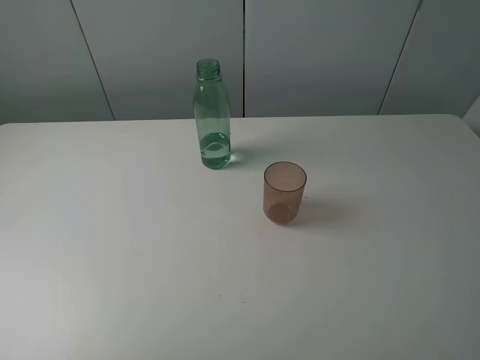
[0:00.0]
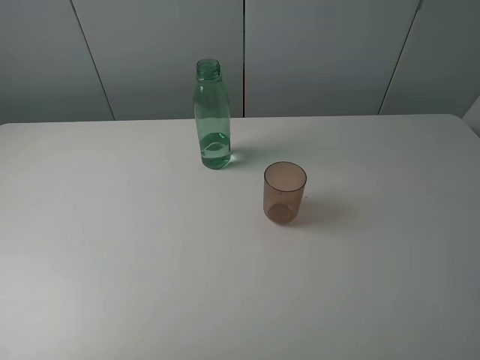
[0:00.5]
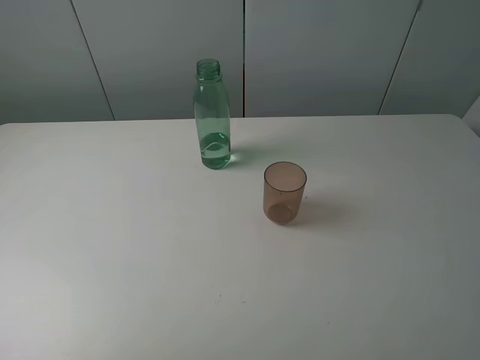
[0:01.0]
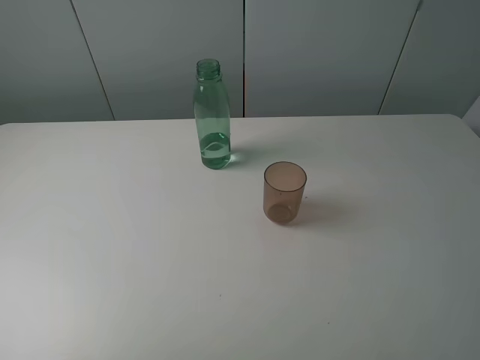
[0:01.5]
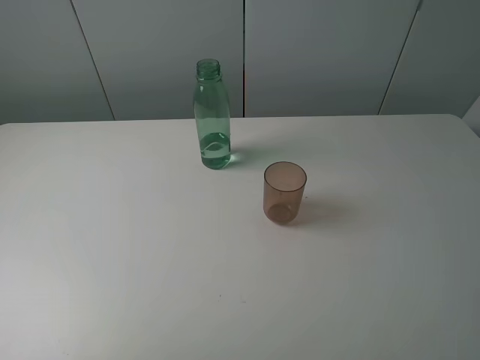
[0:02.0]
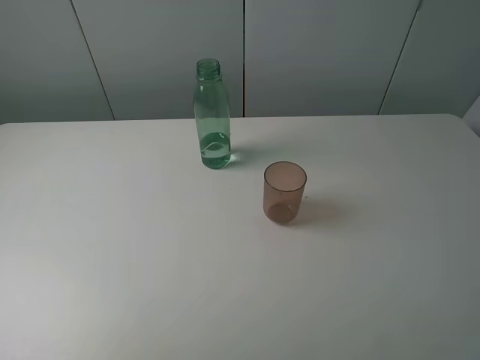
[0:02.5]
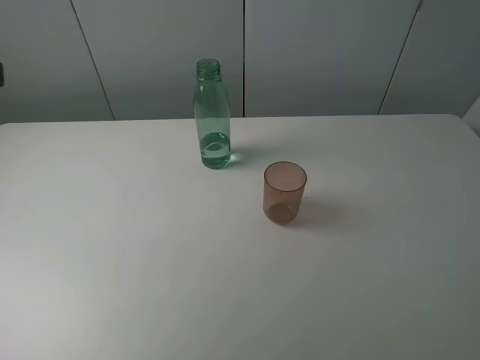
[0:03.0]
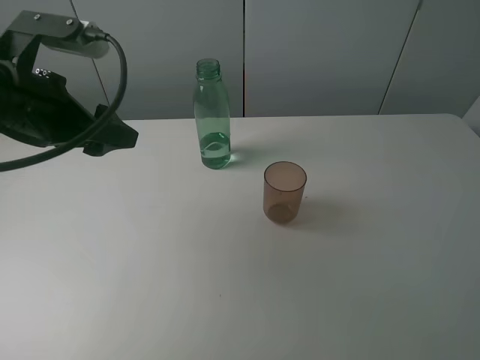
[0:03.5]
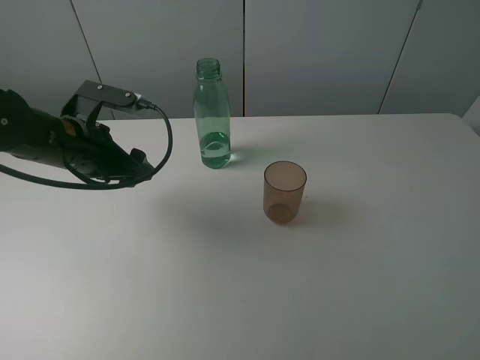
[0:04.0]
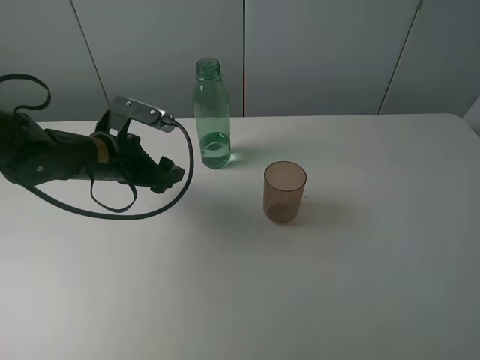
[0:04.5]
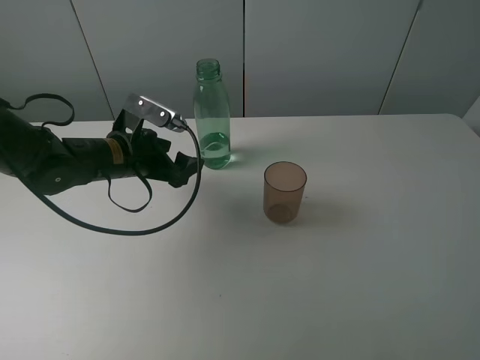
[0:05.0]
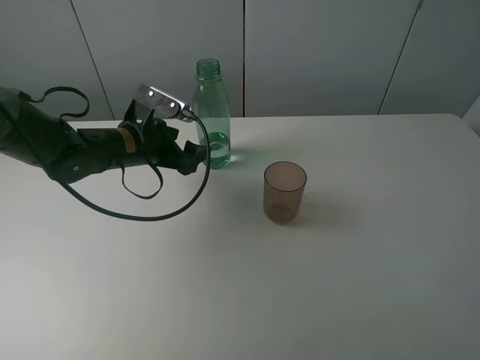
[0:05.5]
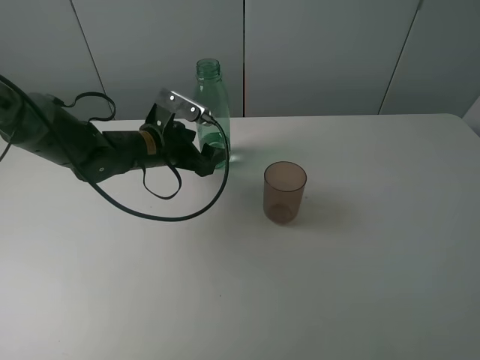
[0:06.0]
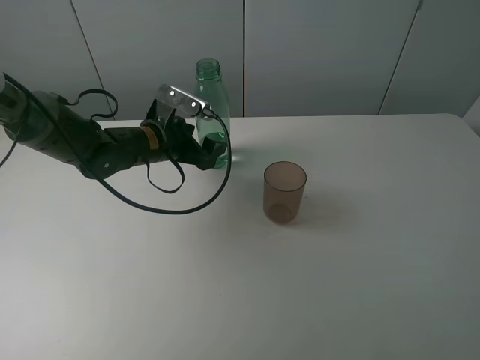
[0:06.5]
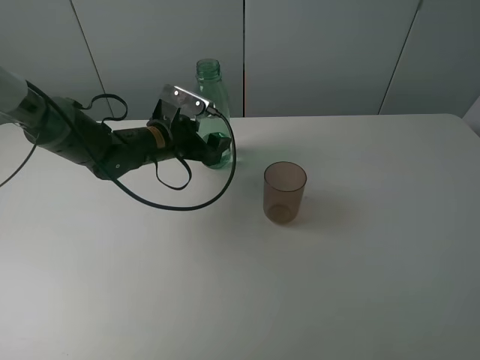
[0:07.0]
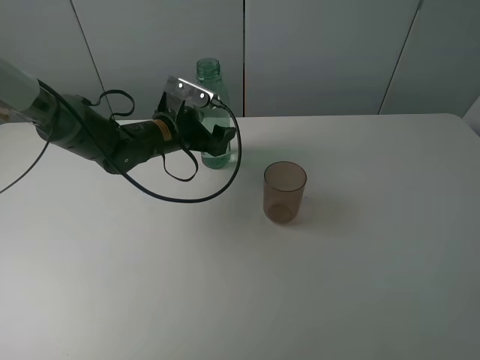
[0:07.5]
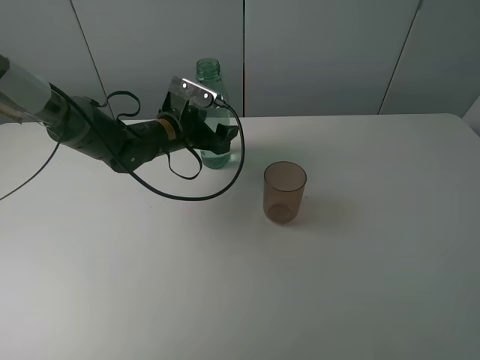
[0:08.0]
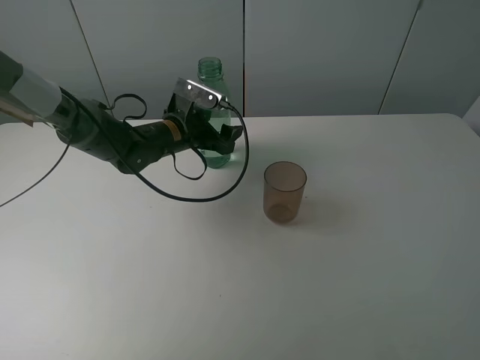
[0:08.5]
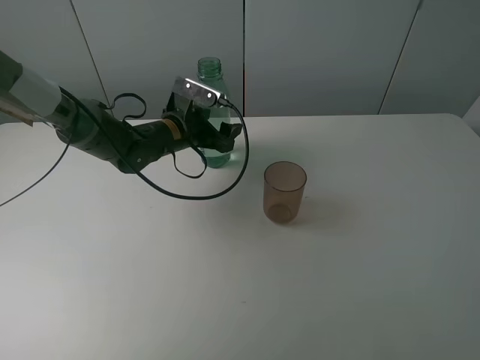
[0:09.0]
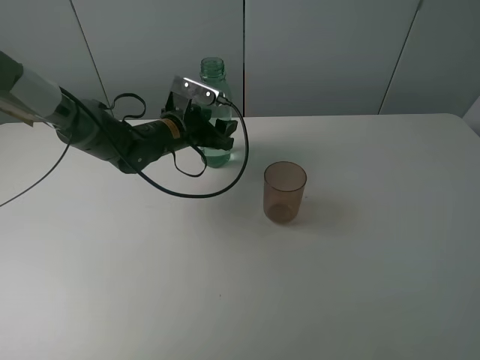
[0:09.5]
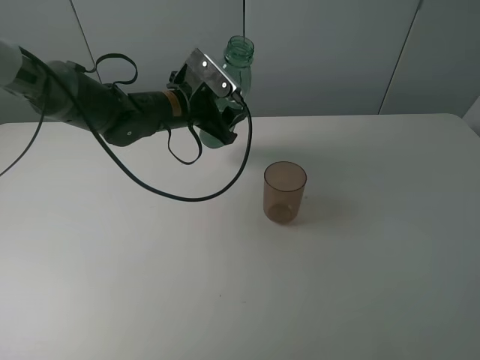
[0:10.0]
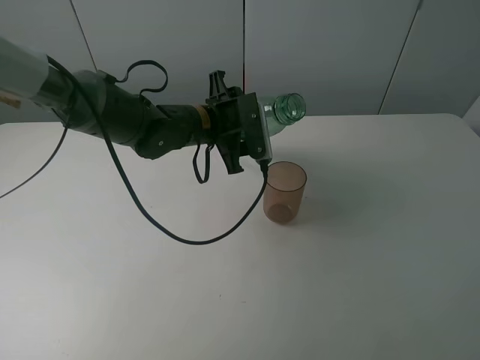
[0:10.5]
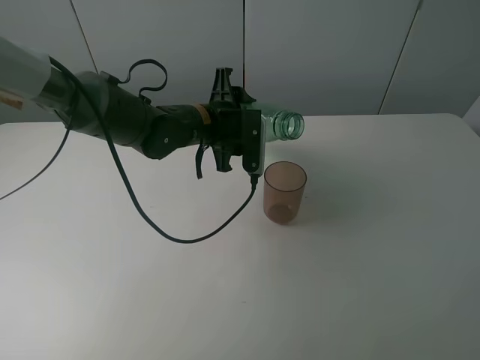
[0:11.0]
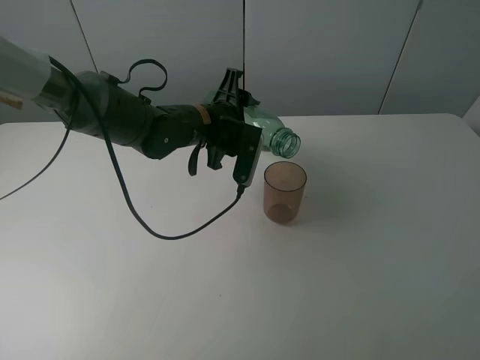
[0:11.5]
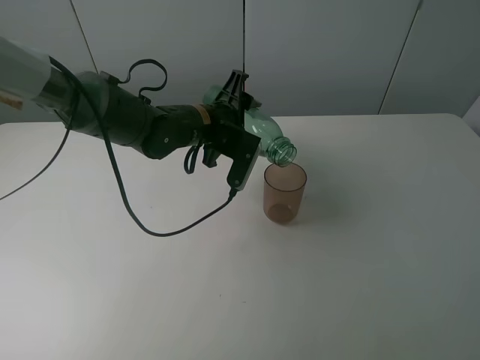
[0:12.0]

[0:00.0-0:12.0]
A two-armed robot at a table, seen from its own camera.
Task of the whole recording: pick up the bottle filled with water and pour it into the pink cup.
Step, 0:00.0 to 0:09.0: Grasp the green bottle with the left gripper.
0:00.0 to 0:02.0: The two grippers keep their place.
0:02.0 to 0:04.0: The left gripper moves forward, to the right and downward, approximately 35 cm.
0:04.0 to 0:06.0: The left gripper moves to the right, forward and downward, some 10 cm.
0:06.0 to 0:08.0: The left gripper moves some 5 cm.
0:08.0 to 0:10.0: The left gripper travels upward by some 5 cm, and closes up.

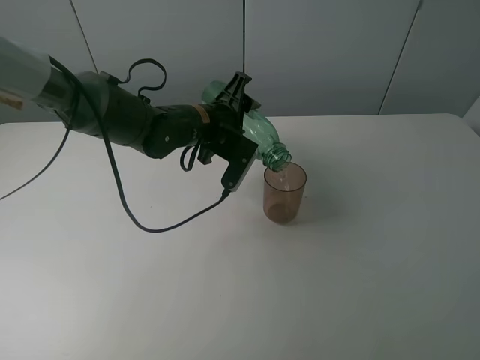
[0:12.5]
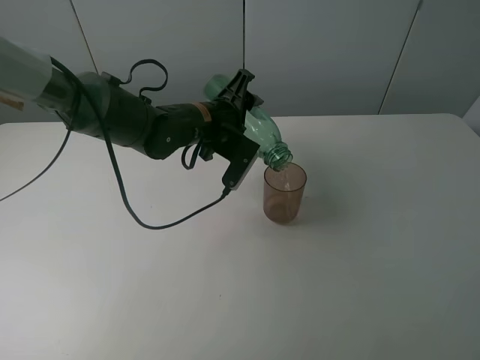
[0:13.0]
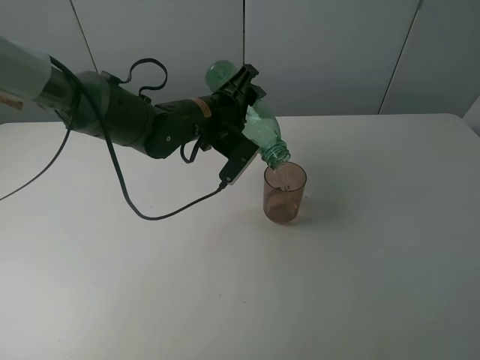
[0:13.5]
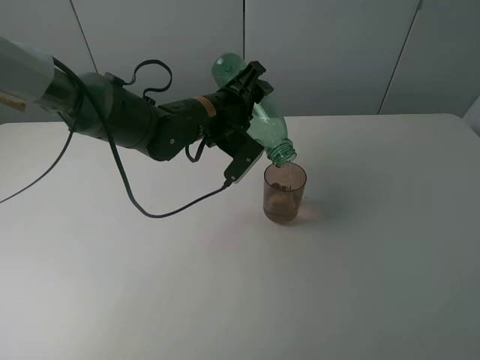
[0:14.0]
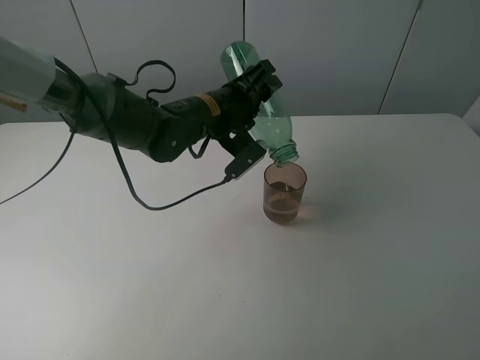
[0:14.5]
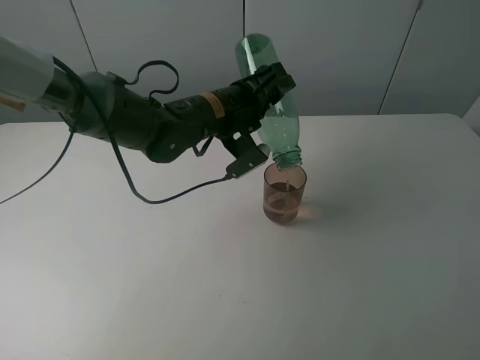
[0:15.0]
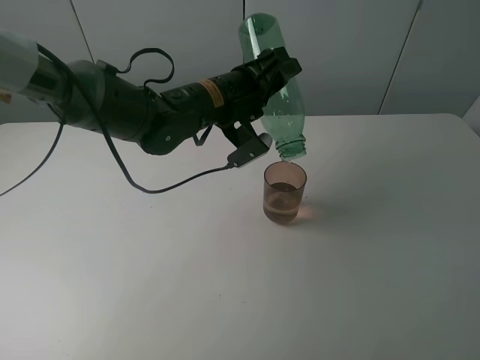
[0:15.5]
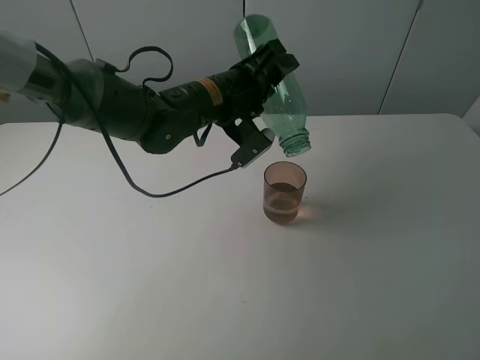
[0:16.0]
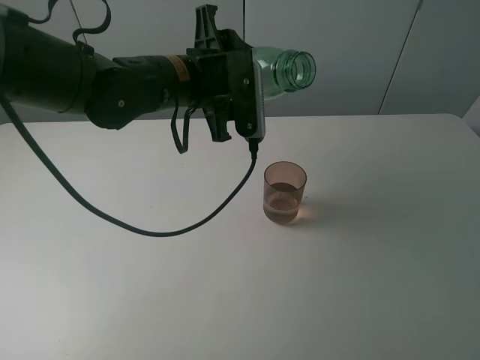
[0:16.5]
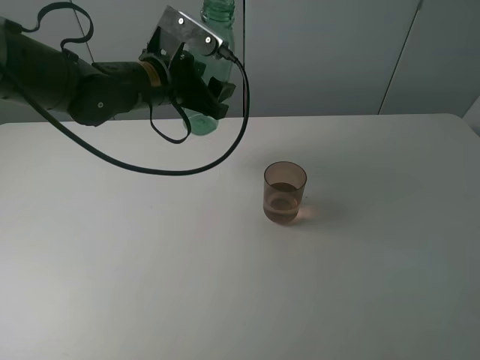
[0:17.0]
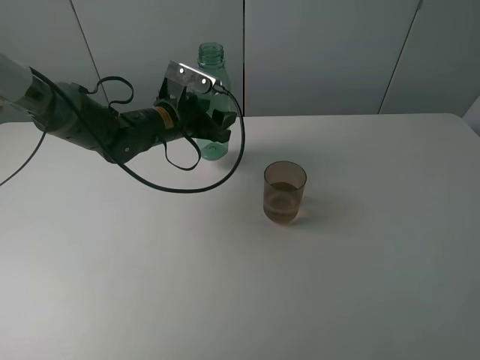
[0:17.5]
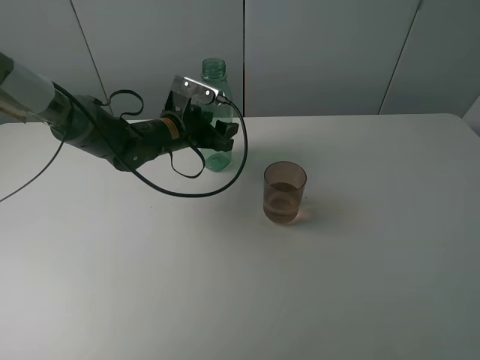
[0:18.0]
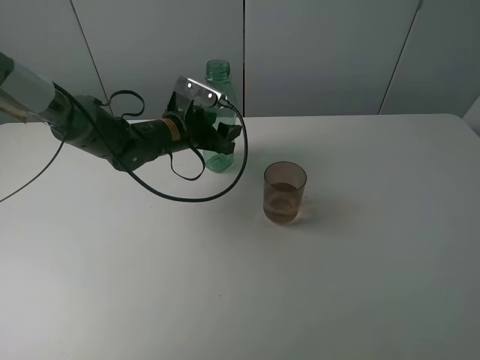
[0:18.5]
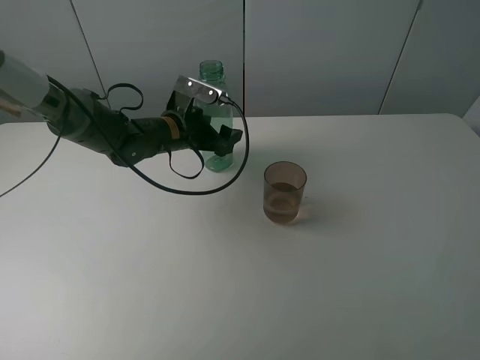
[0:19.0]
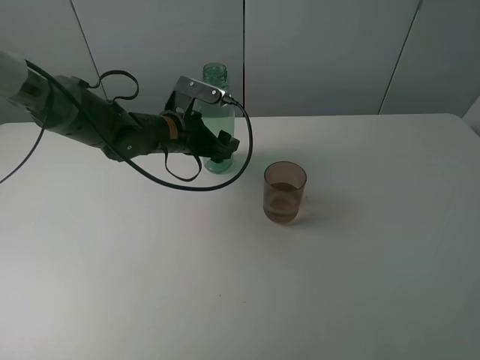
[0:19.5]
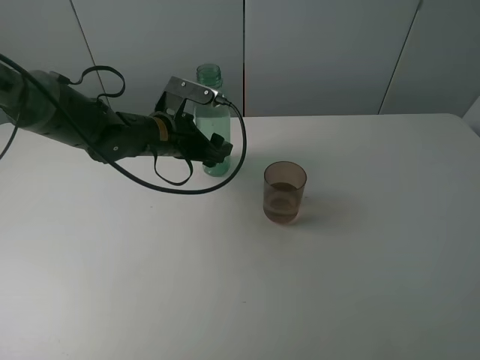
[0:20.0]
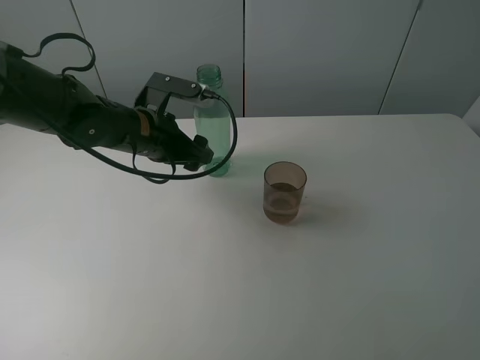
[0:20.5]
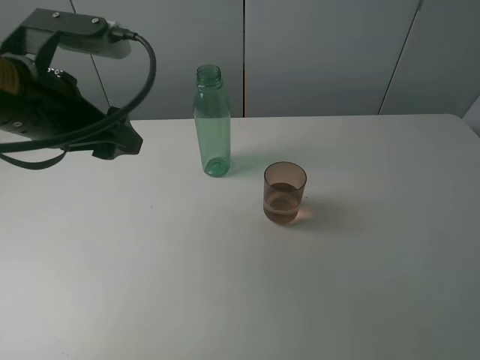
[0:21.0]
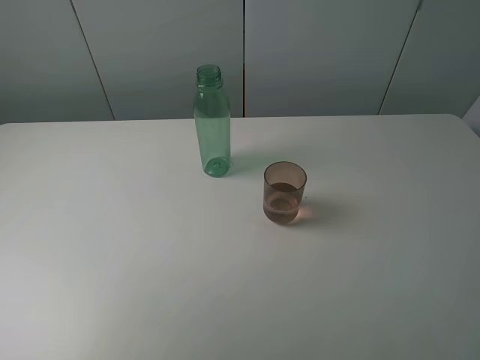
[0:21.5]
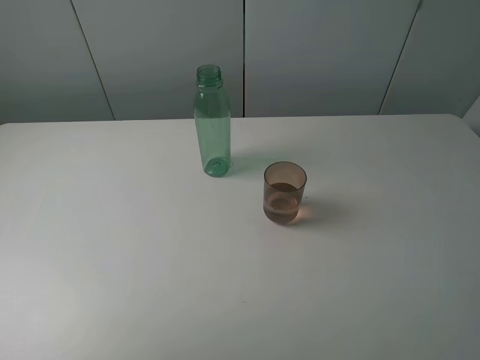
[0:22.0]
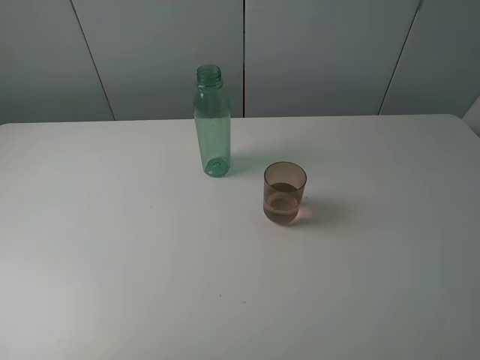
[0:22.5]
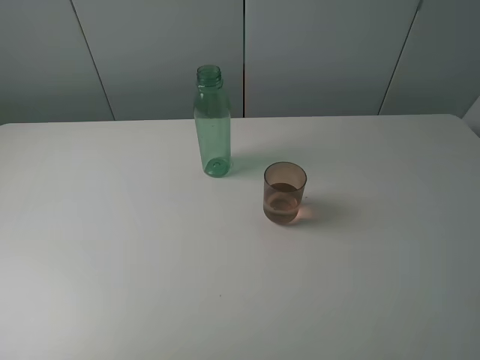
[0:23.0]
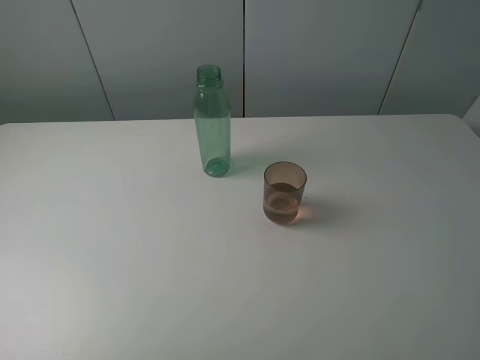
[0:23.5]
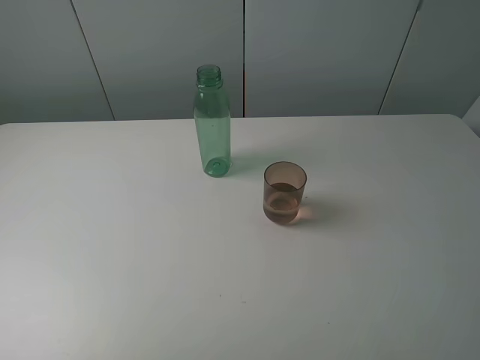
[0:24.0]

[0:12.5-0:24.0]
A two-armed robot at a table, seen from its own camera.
Task of the whole recording: pick up the bottle filled with water and pour it into the pink cup.
Step, 0:12.5 to 0:16.0: Pour water from green bottle to pink cup with the left gripper.
Step, 0:16.5 to 0:20.5: Place the green bottle with the left gripper.
0:14.5 to 0:16.5: The left gripper moves upward, about 5 cm.
0:16.5 to 0:18.5: The left gripper moves downward and forward, about 15 cm.
0:18.5 to 0:20.0: The left gripper opens.
0:20.0 to 0:22.0: The left gripper goes approximately 40 cm backward, to the left and upward.
